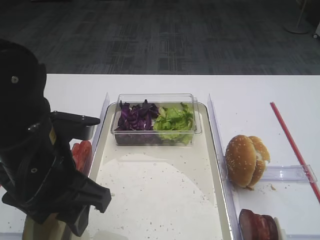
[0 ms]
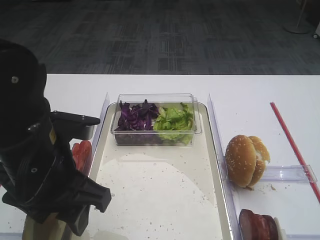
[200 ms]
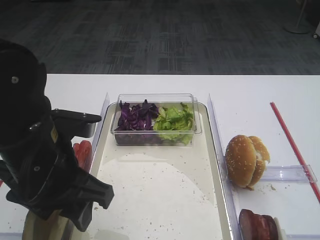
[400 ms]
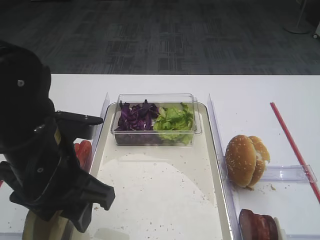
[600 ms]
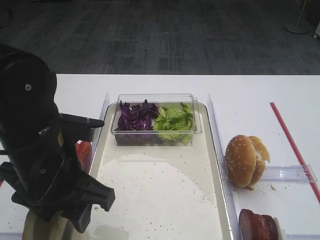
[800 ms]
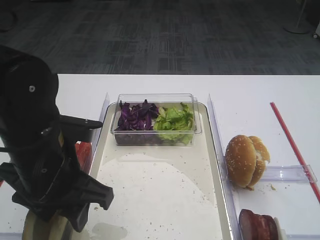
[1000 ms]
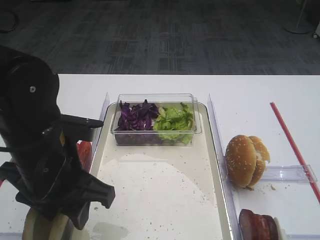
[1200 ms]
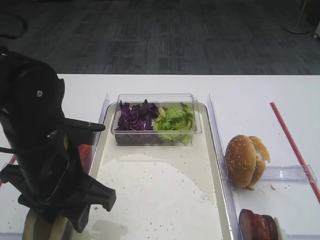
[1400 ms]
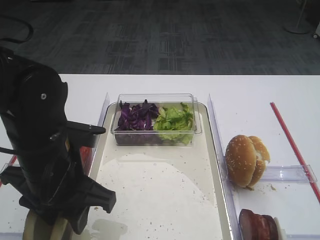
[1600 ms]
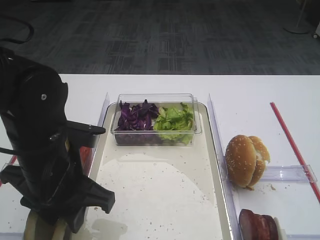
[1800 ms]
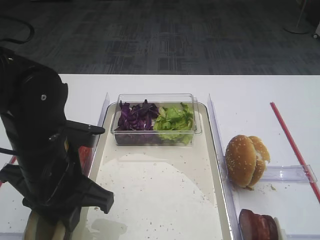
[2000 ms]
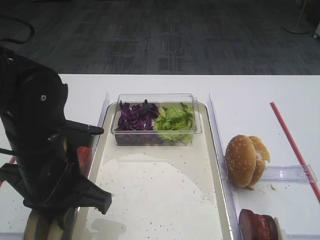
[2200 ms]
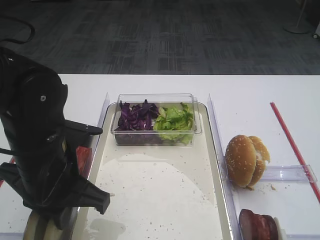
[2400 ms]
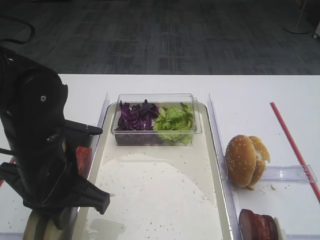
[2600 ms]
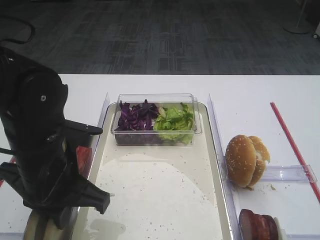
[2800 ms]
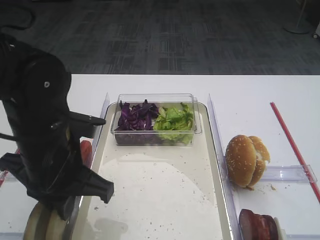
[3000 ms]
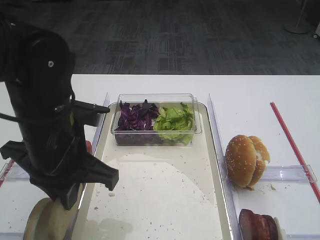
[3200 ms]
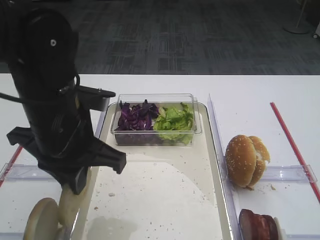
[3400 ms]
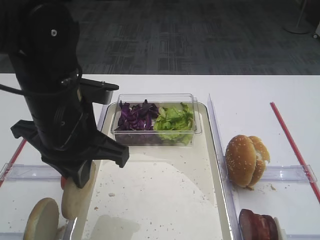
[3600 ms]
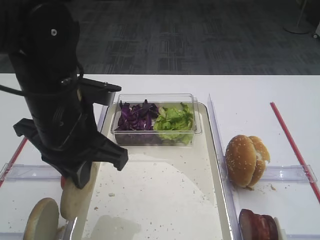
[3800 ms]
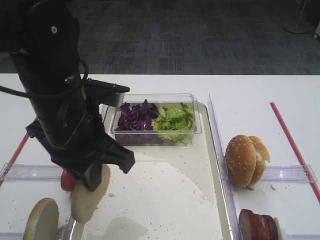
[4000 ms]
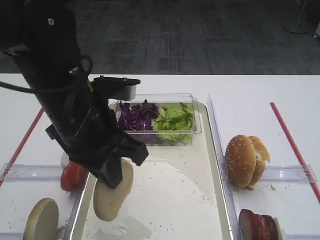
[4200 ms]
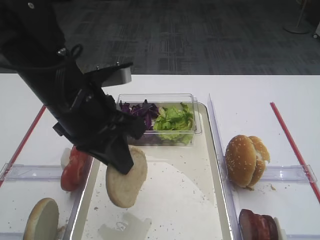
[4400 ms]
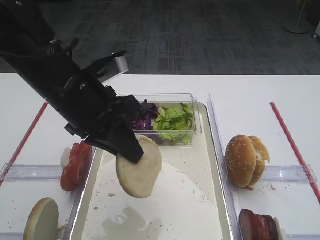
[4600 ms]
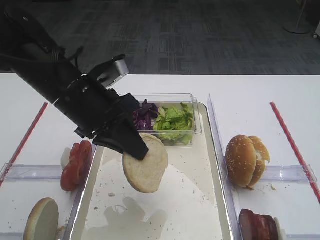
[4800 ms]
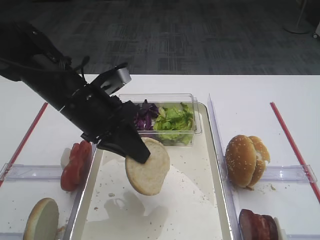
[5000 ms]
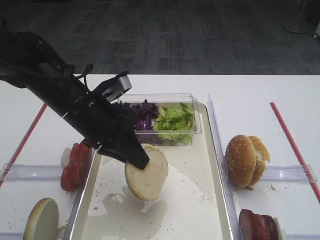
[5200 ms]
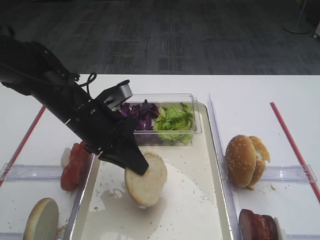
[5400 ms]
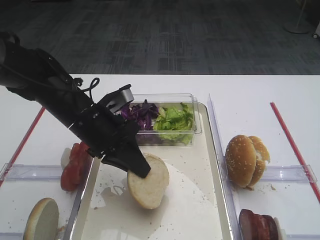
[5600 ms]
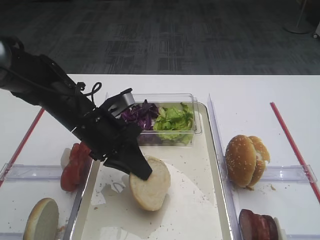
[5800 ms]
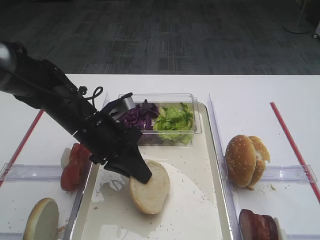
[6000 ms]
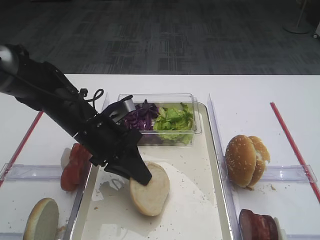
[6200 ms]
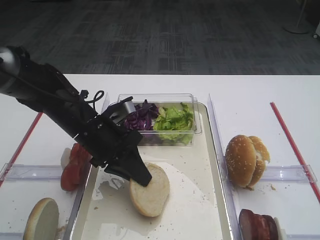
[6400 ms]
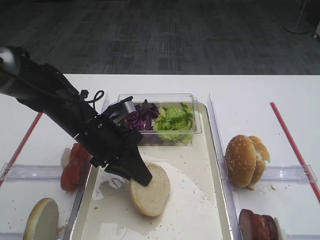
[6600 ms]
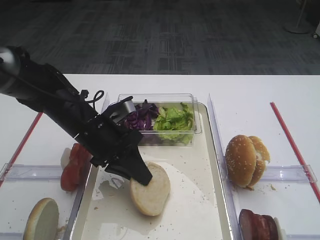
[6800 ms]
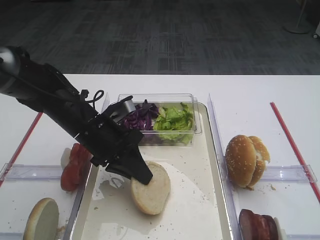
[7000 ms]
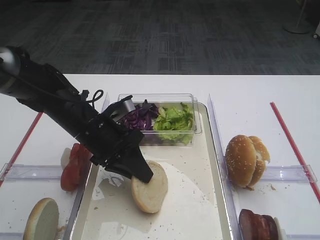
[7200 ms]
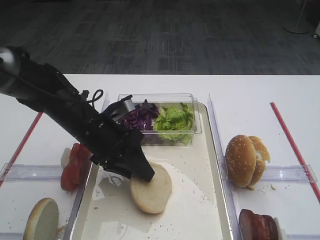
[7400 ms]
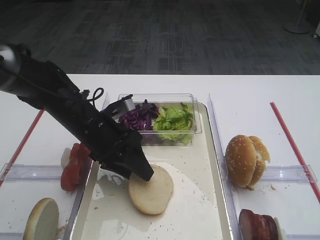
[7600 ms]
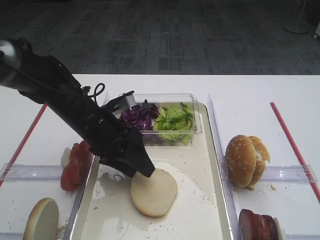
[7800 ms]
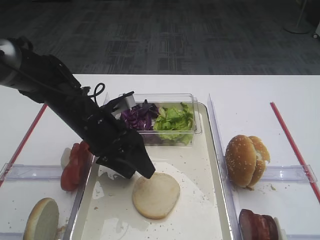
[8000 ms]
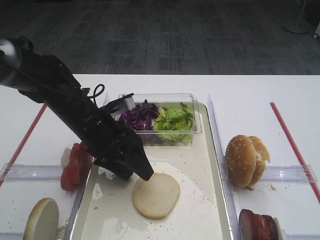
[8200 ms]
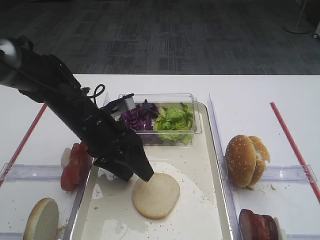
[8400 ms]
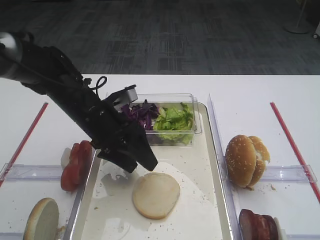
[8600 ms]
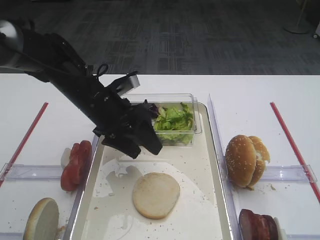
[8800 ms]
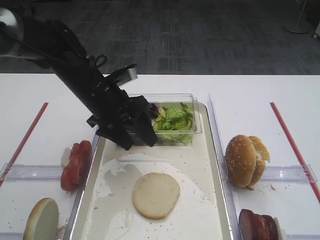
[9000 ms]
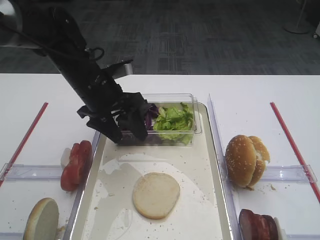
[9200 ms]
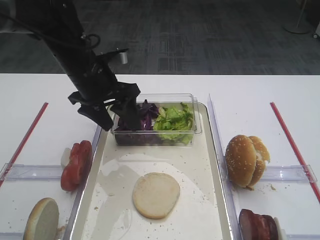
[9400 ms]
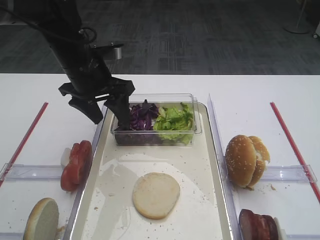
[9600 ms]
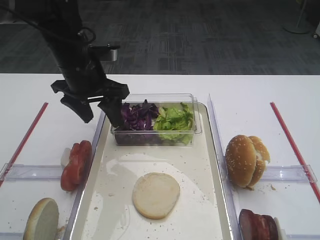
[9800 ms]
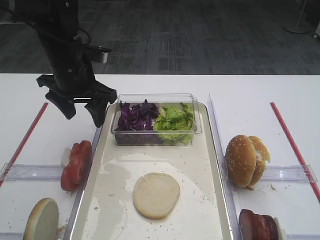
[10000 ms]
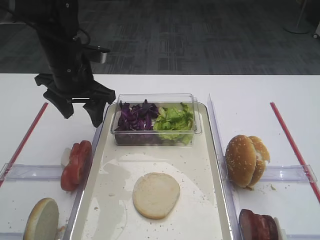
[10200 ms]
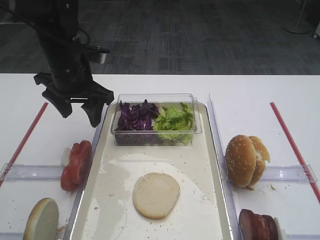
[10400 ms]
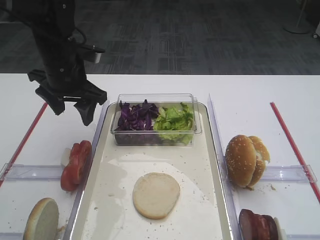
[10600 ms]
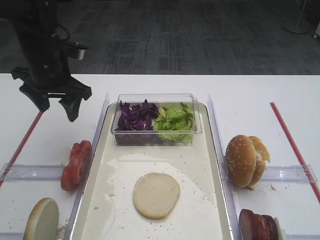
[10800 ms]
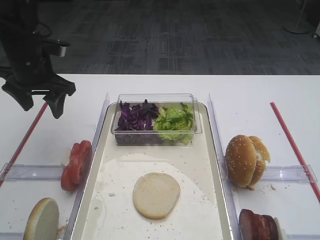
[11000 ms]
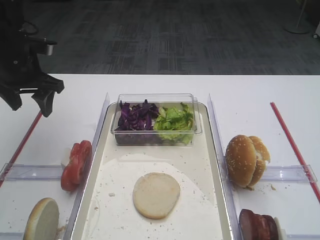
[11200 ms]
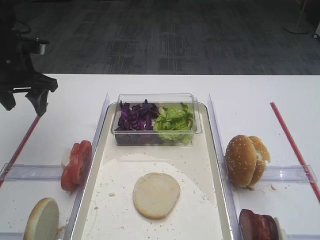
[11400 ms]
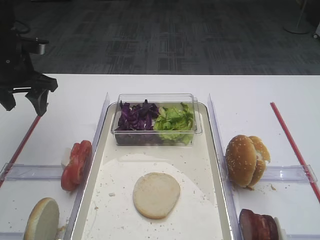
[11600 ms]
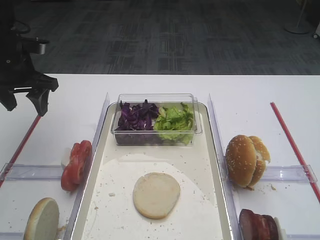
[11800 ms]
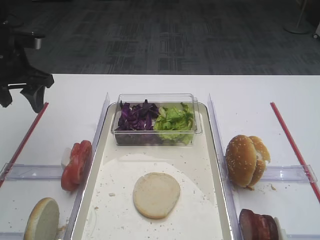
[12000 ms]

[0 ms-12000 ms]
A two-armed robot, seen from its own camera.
Step, 0 ms to 3400 ms: Pick up the bread slice with the left gripper.
Step, 3600 ms to 8600 ms: Place the bread slice on the tray with the left gripper.
0 ms to 1600 ms: The grippers move only a little.
1600 ms to 3000 ms: The left gripper closes.
3000 ms to 4400 ms: The left gripper goes some 5 cm upward.
4400 ms to 6000 ms: The left gripper goes about 10 cm downward and forward.
6000 ms to 7600 ms: The left gripper opens up.
7600 ms to 9000 ms: The left gripper changes place by approximately 5 cm, and opens up.
9000 ms to 10400 ms: The left gripper moves to the left, some 5 cm.
10400 ms to 12000 ms: The left gripper moves to the left, roughly 10 cm.

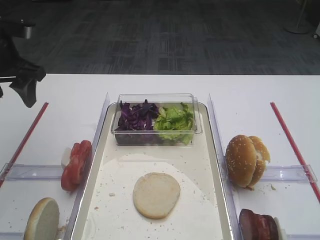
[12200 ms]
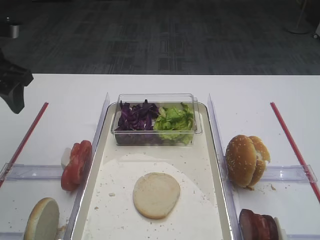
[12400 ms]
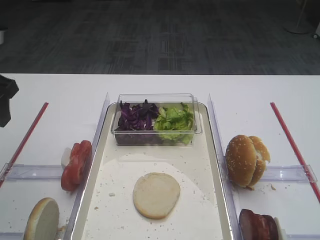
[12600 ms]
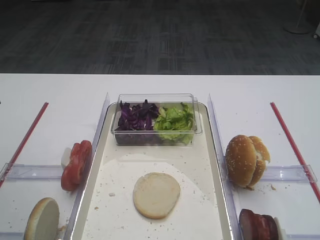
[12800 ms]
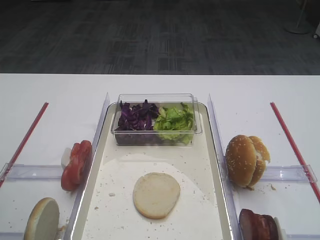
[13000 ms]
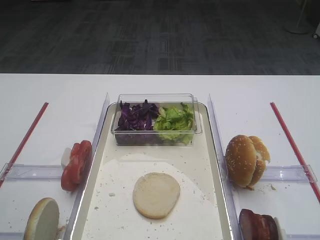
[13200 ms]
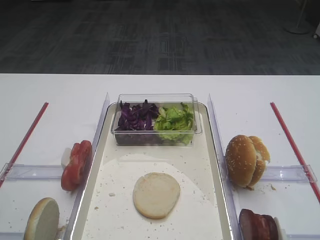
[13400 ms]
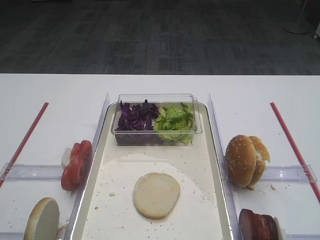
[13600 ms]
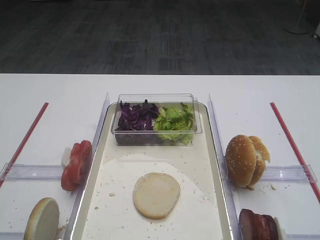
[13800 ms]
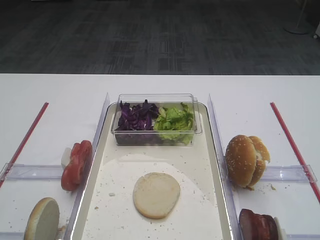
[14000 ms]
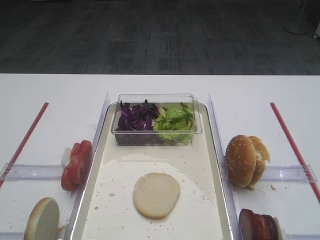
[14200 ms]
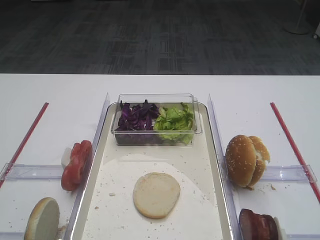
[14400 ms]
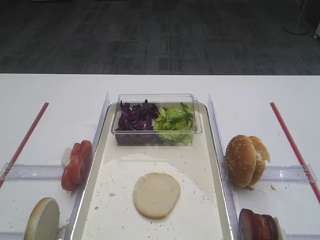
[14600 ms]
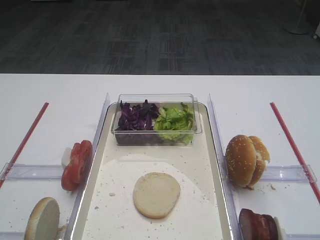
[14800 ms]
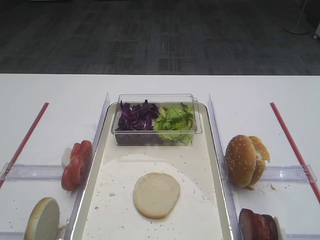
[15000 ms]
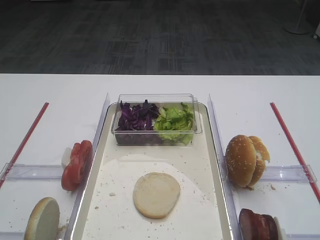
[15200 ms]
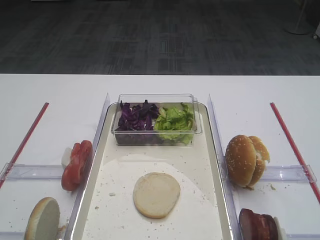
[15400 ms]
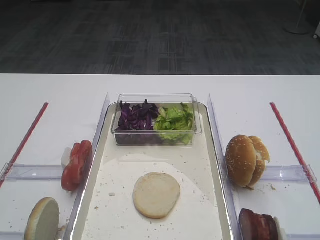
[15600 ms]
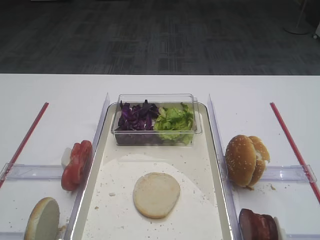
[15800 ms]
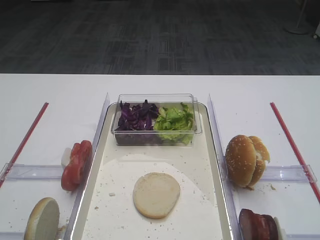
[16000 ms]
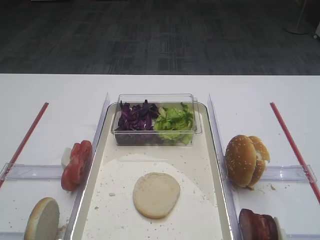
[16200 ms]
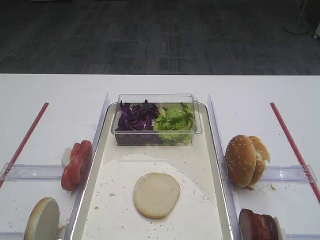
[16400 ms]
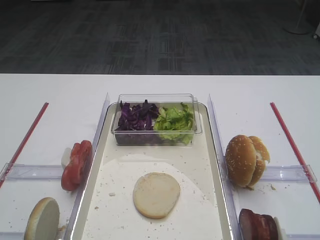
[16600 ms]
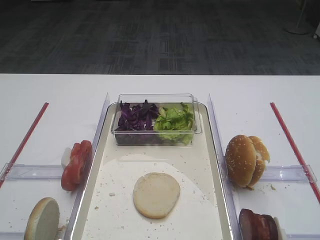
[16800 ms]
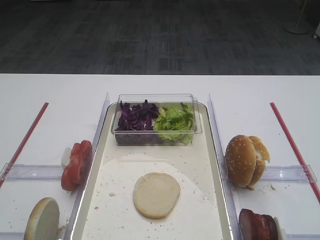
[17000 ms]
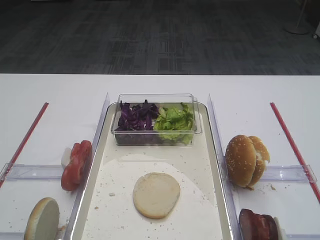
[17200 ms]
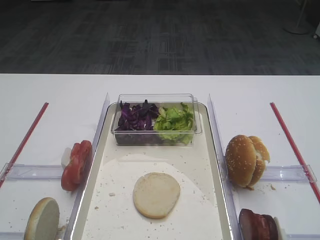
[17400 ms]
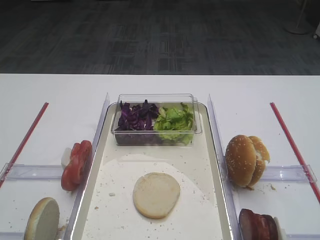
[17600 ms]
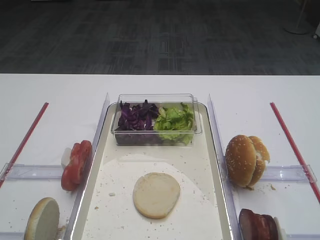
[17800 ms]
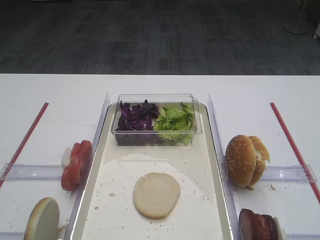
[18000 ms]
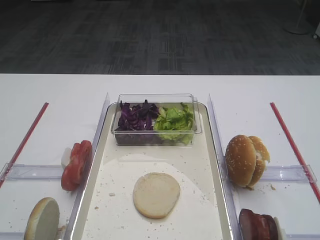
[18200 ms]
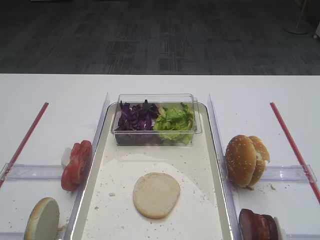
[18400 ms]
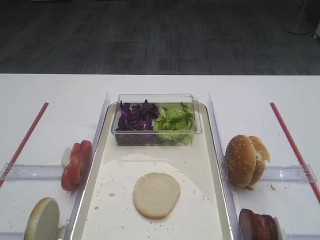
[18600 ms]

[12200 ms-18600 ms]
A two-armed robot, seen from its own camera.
12200 ms to 13800 ms: The left gripper is displaced backward by some 30 cm.
15400 ms to 18600 ms: Both grippers stay about where they are.

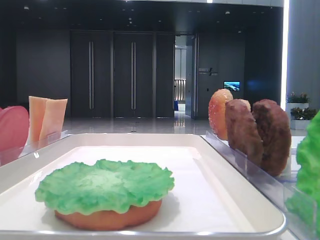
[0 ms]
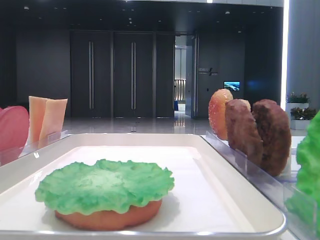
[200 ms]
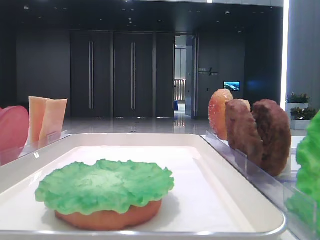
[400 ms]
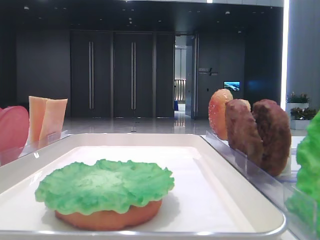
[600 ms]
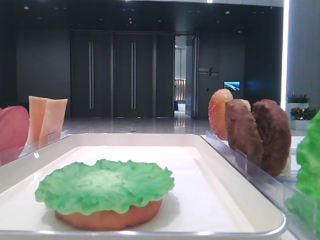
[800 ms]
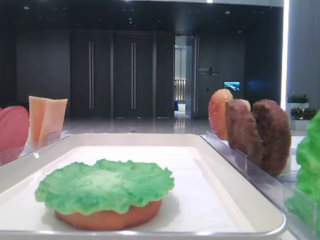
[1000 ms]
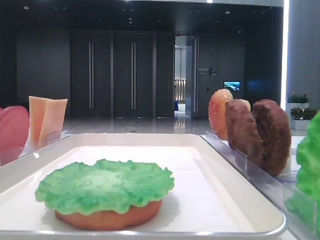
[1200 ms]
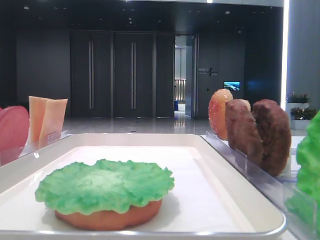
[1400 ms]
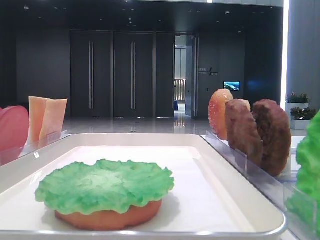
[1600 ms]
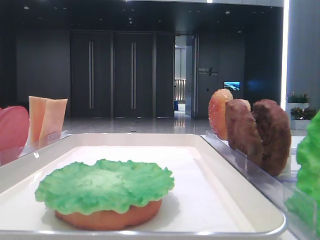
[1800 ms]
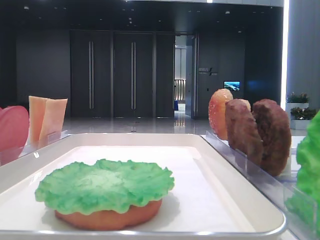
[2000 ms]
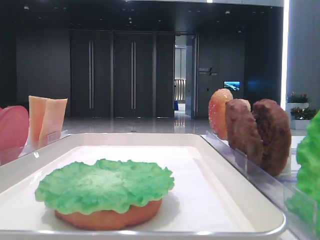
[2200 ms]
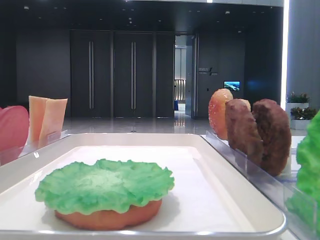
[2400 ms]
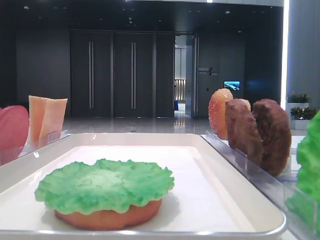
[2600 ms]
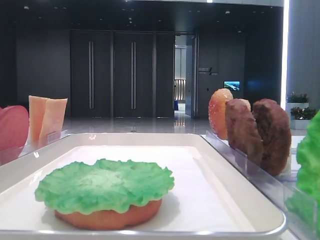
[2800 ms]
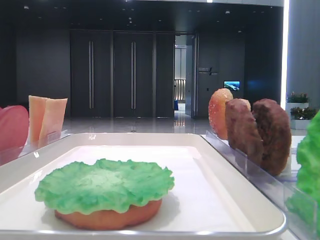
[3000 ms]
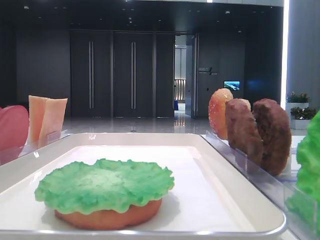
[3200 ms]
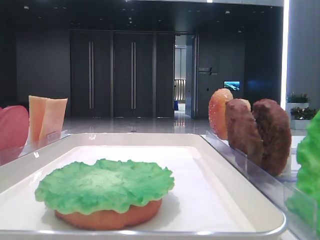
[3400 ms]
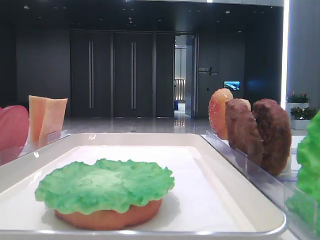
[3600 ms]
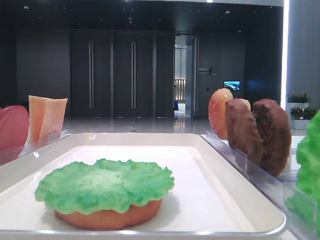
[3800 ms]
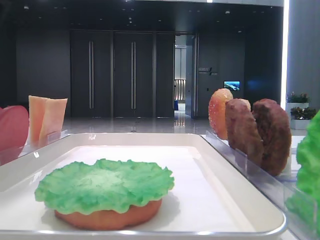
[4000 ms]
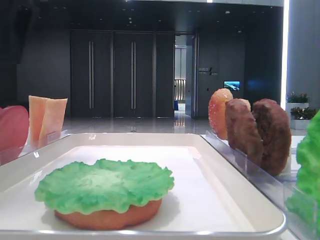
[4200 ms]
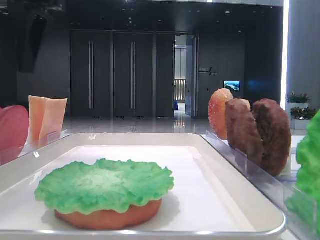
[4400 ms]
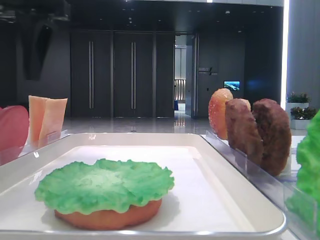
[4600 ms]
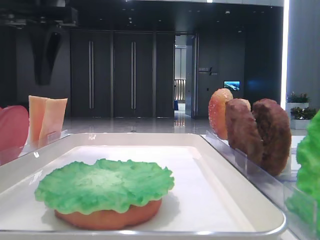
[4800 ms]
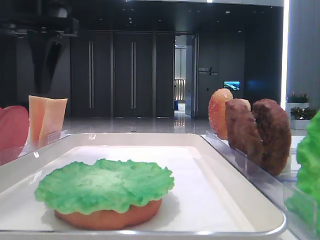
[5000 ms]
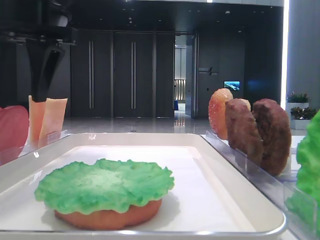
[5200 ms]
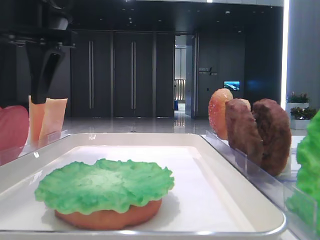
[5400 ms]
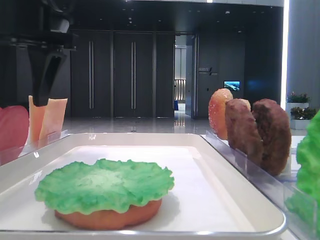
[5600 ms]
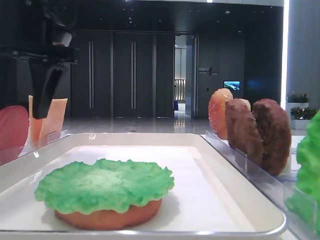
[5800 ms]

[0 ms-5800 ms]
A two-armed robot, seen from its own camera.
2800 ms to 4400 ms: The left gripper shifts some 15 cm to the right and downward.
4400 ms to 5800 ms: The left gripper travels downward by some 5 cm.
